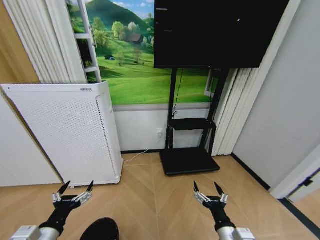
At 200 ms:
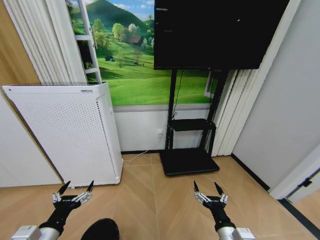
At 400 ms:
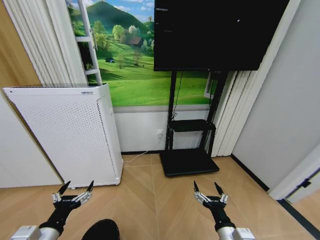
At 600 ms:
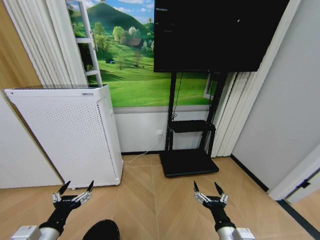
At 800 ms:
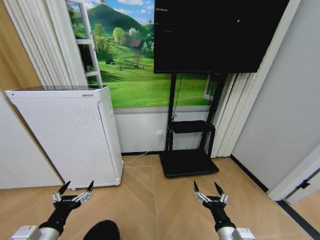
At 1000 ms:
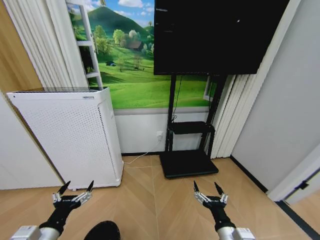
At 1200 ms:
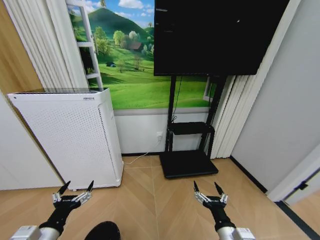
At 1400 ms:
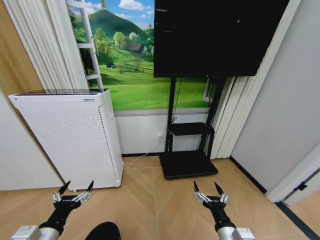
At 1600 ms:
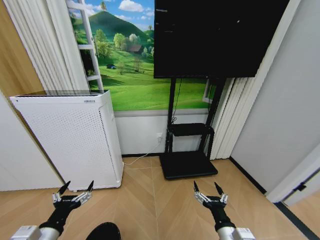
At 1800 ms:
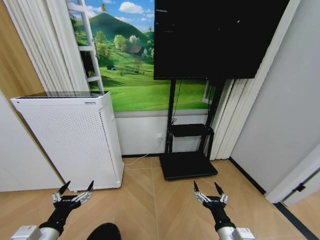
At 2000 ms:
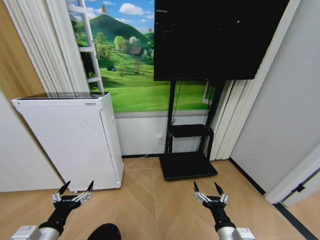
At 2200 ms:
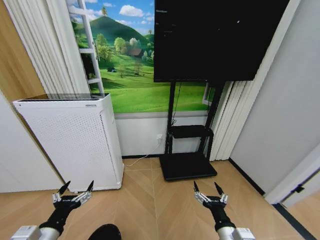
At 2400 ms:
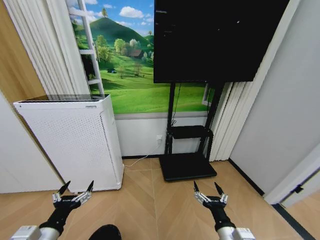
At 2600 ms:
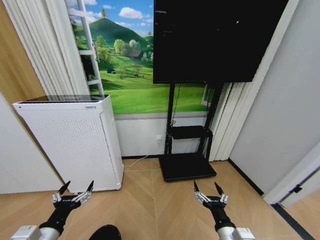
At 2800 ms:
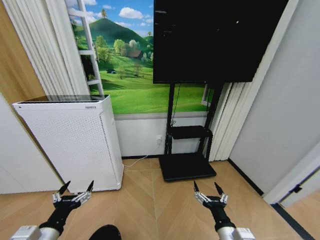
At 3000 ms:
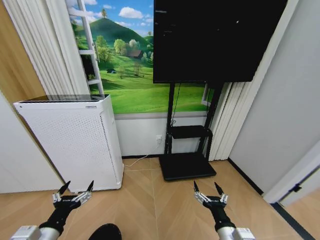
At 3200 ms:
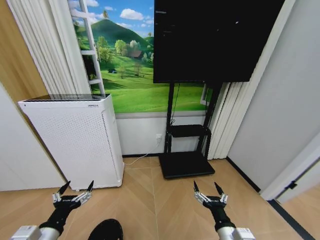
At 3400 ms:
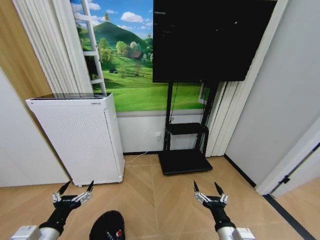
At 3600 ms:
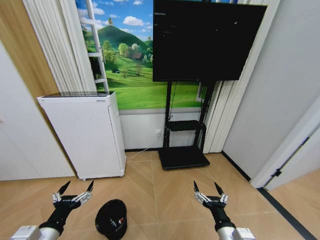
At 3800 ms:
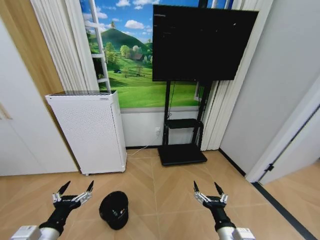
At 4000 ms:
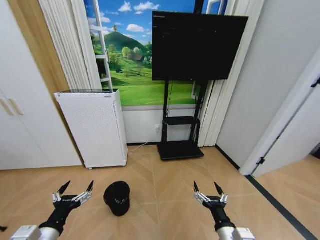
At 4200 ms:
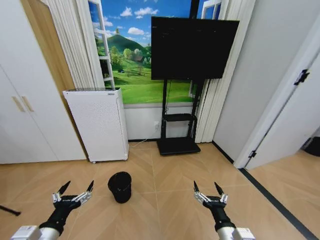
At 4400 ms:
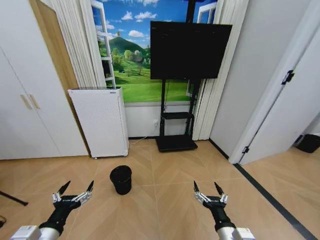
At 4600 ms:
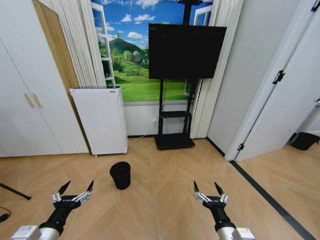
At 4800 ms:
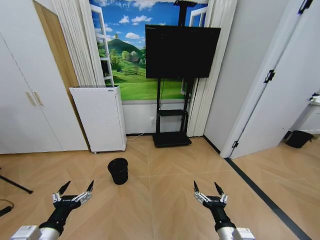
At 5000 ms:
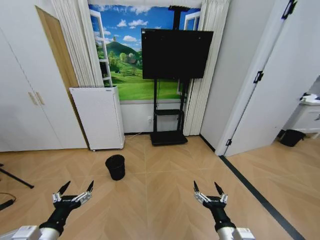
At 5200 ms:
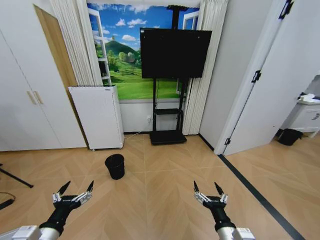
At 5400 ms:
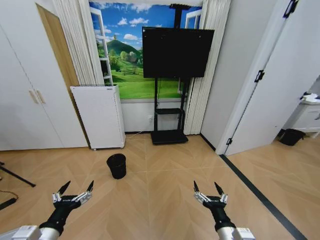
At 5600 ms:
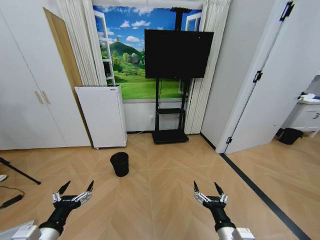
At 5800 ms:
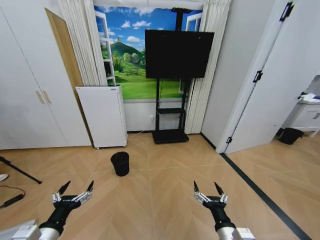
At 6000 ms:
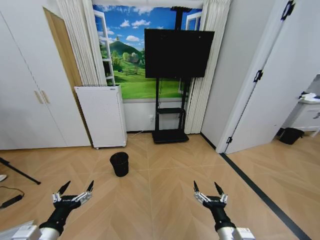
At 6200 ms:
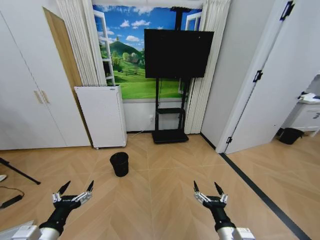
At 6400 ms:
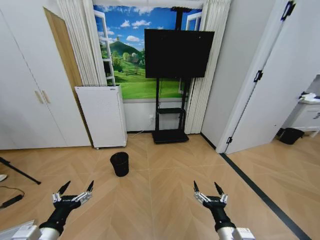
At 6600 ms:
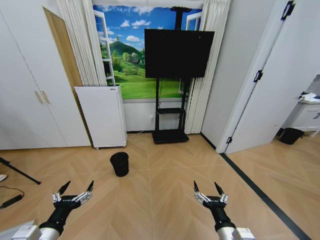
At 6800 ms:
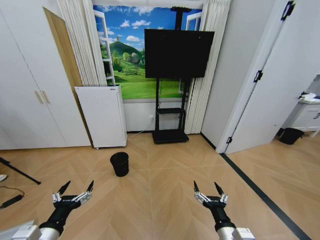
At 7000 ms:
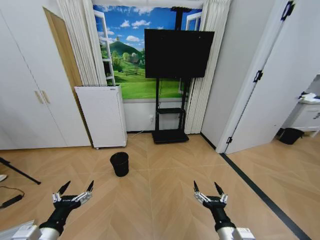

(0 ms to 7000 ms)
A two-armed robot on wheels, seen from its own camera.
Task of the whole recording: Pick up the trash bin and place the garbage on the floor into it.
0 ms - 2800 ms: Both grippers stay about where they are.
5600 ms - 7000 ms: Both grippers stay about where they are.
